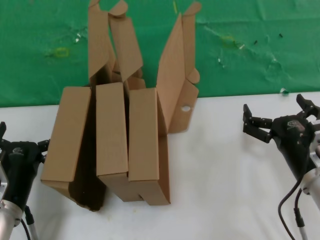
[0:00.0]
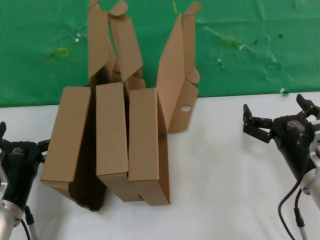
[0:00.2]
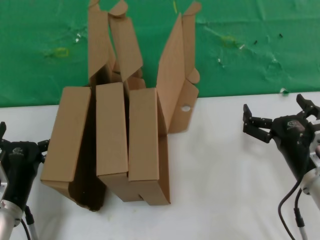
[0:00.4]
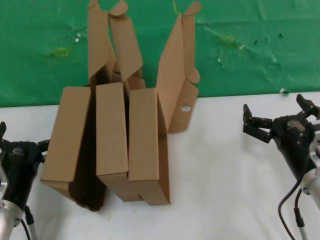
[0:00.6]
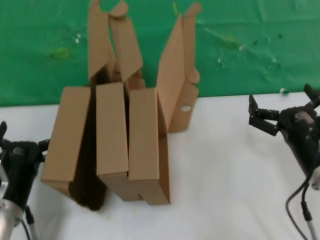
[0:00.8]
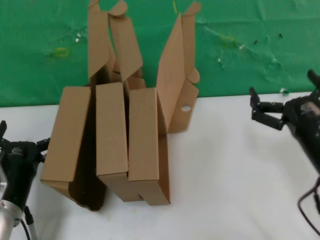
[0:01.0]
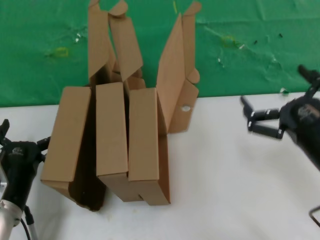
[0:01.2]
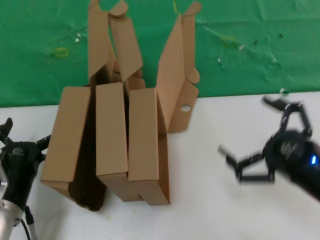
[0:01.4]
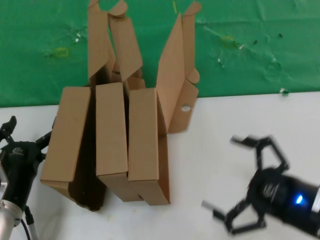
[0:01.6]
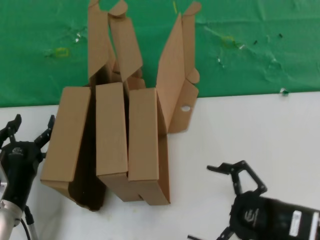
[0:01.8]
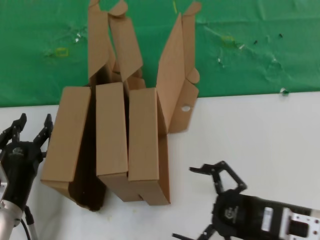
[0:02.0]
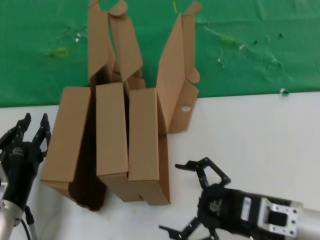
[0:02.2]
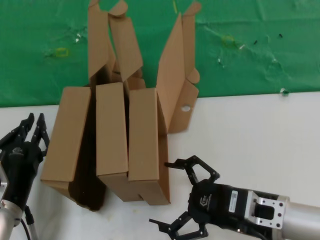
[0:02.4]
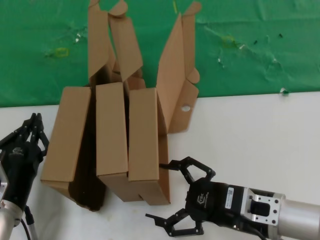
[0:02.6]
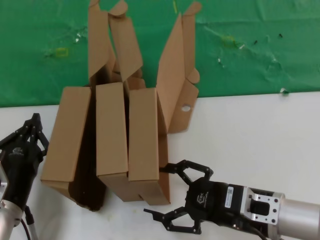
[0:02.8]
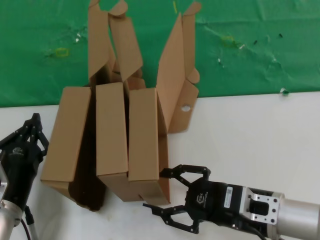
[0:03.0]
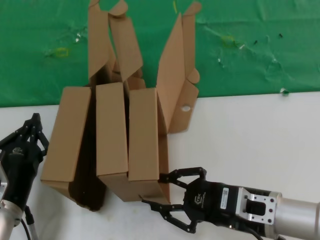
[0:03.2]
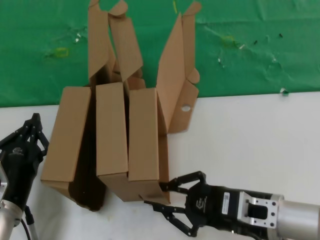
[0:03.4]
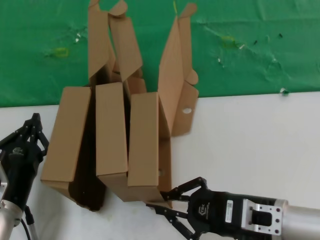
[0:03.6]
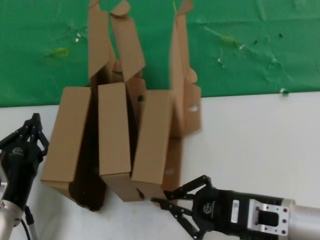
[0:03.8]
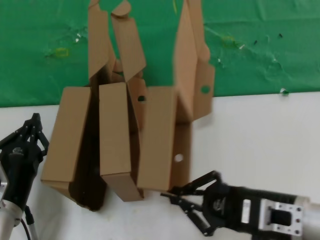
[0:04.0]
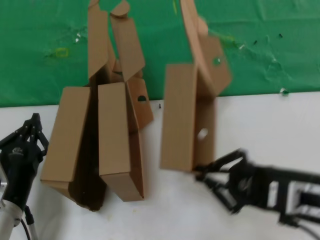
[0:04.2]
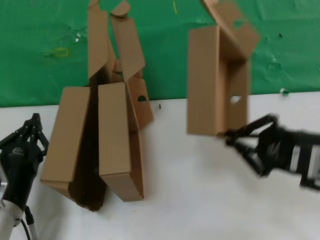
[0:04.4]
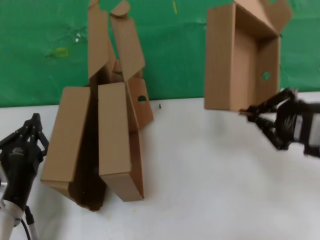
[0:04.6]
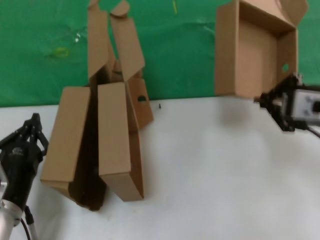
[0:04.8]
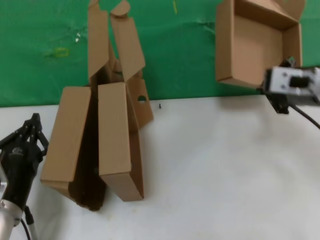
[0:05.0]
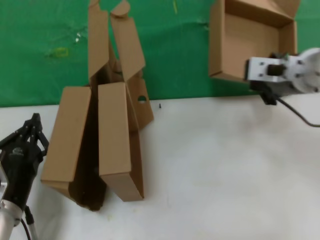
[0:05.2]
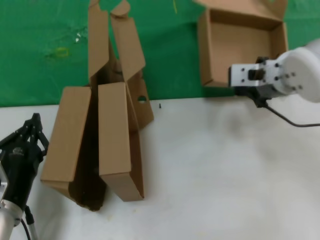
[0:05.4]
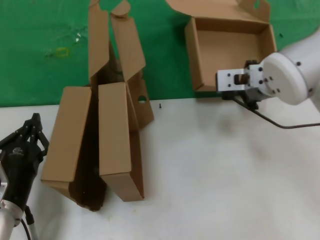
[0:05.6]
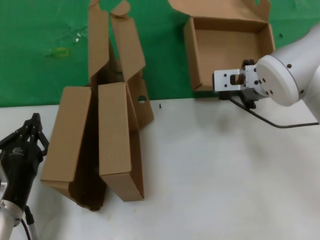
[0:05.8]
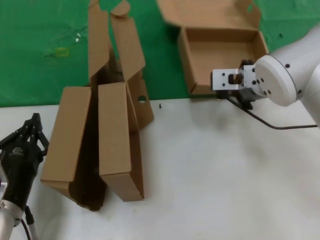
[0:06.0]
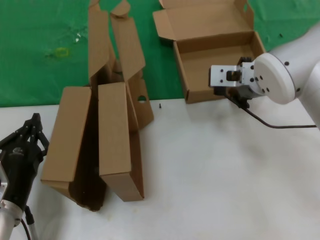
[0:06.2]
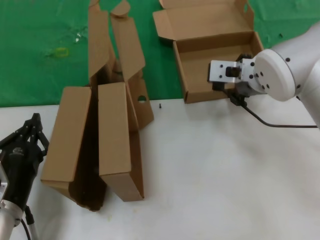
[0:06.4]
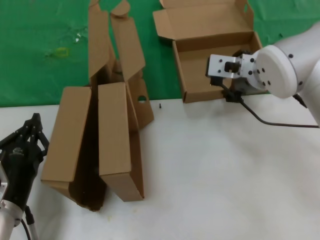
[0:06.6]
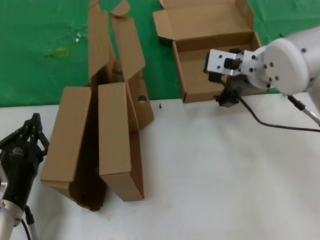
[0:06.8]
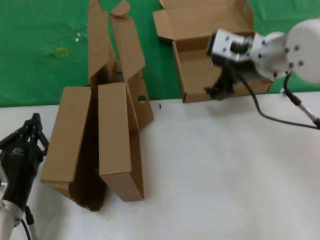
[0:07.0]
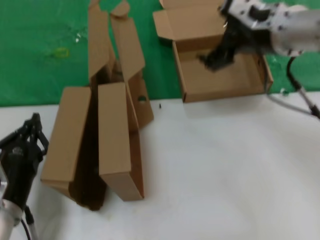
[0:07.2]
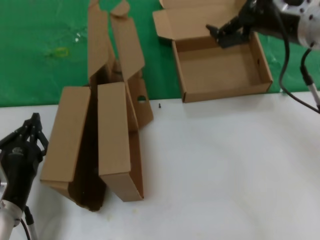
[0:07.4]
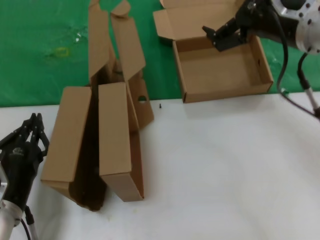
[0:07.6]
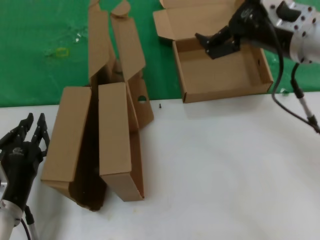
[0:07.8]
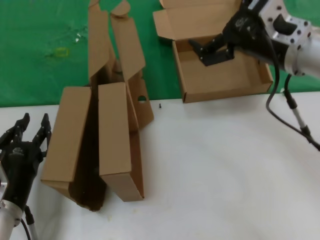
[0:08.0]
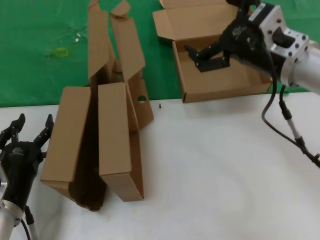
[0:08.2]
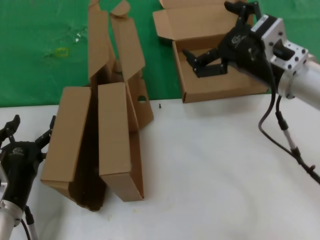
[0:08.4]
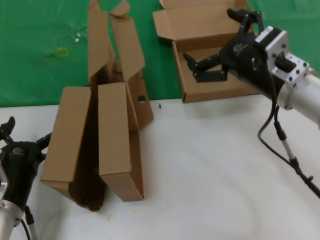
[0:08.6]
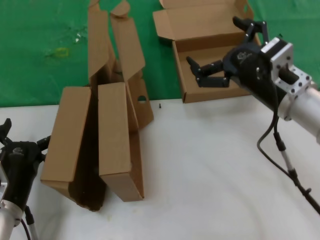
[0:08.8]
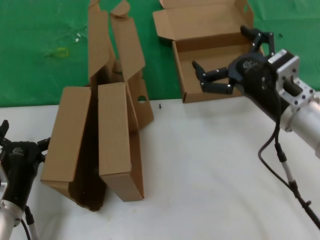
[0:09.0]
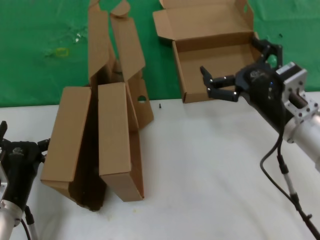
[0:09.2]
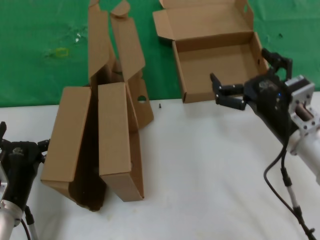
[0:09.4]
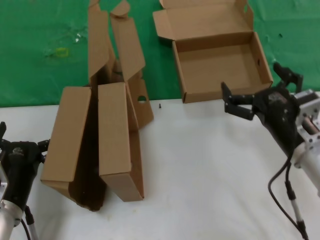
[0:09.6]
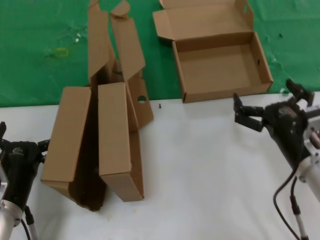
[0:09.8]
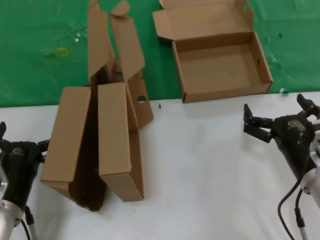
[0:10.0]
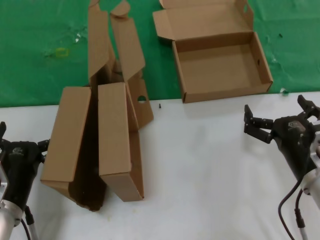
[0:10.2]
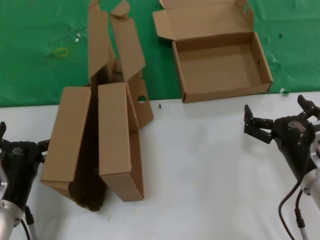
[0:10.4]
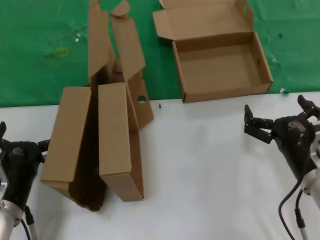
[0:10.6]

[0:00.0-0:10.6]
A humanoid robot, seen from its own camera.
Task of the whole recording: pick up the paper box and put it at the back.
Step, 0:00.0 to 0:03.8: Grasp the paper box.
Step, 0:04.0 to 0:06.6: Place the paper box on the table.
0:00.0 to 0:01.6: The right hand goes roughly 10 cm backward and upward.
0:01.6 to 0:03.0: The right hand is displaced to the left and forward by some 10 cm.
0:03.0 to 0:04.6: The right hand goes approximately 15 cm upward and to the right.
0:04.6 to 0:06.0: The right hand moves forward and to the left, roughly 20 cm.
0:06.0 to 0:07.6: The right hand moves upward, to the right and backward, approximately 10 cm.
0:07.6 to 0:09.0: The right hand moves downward, approximately 15 cm.
0:09.0 to 0:10.6: The right hand shifts roughly 15 cm downward and backward.
